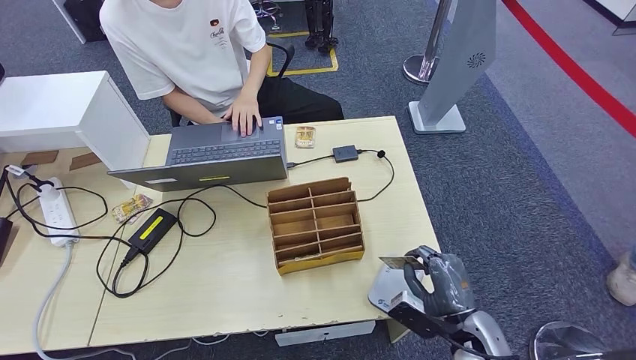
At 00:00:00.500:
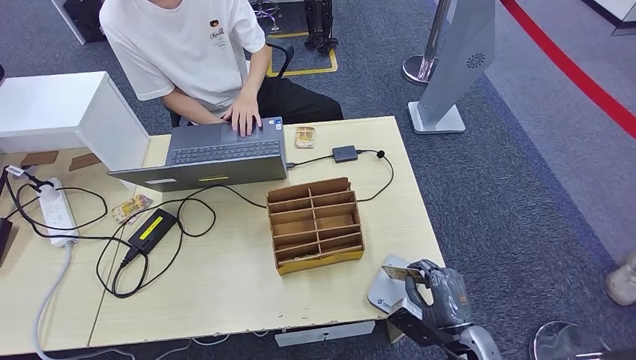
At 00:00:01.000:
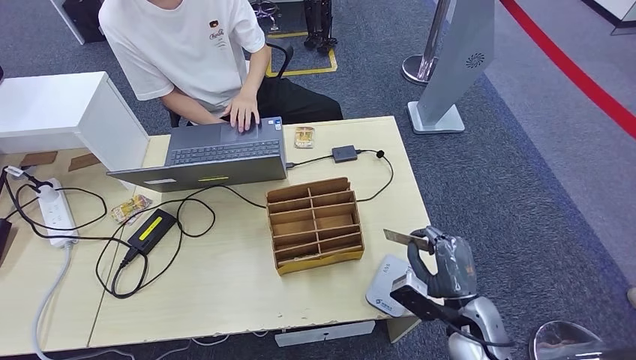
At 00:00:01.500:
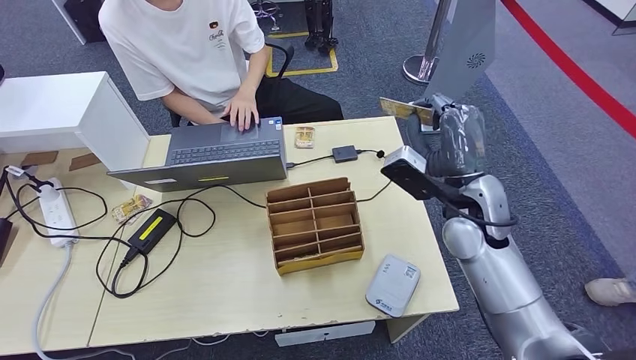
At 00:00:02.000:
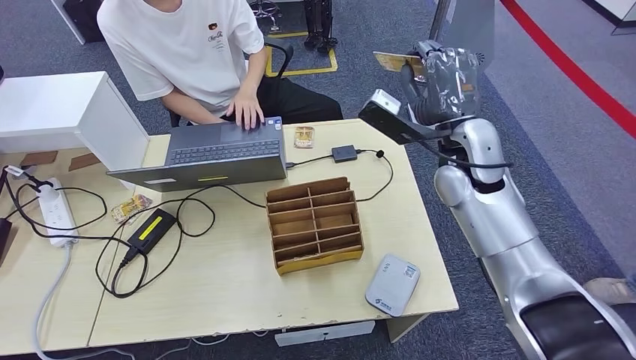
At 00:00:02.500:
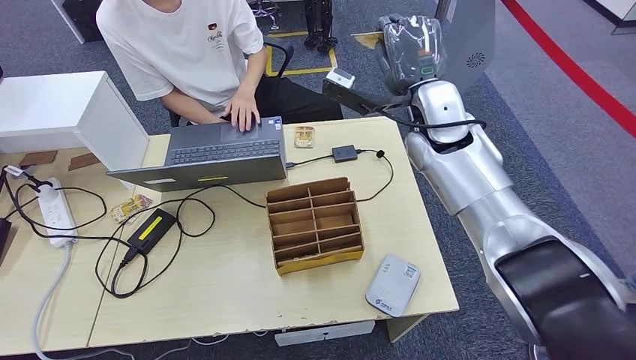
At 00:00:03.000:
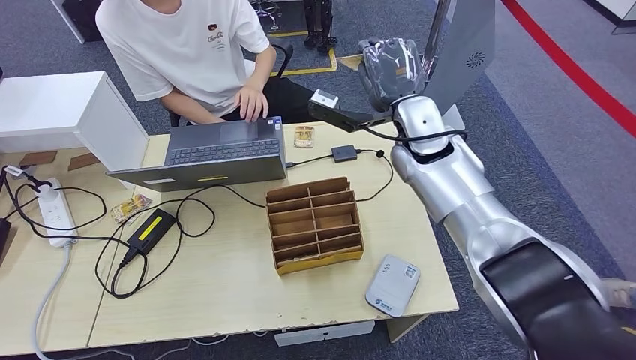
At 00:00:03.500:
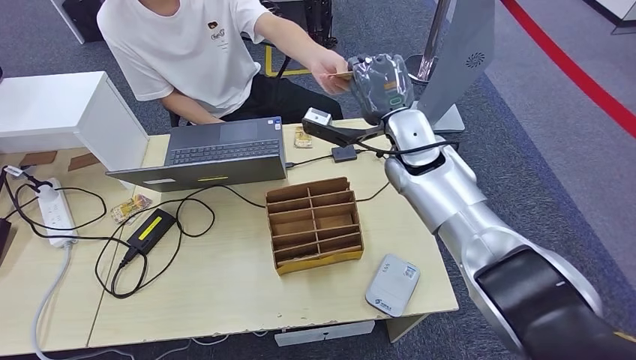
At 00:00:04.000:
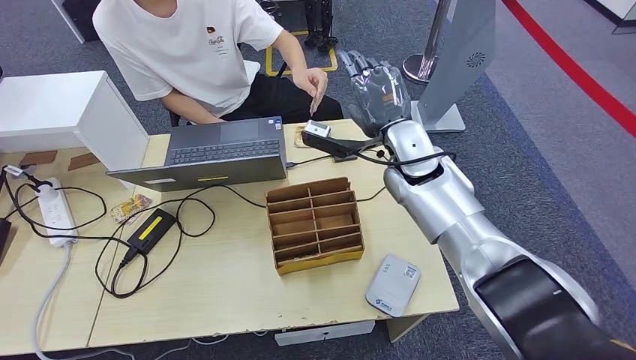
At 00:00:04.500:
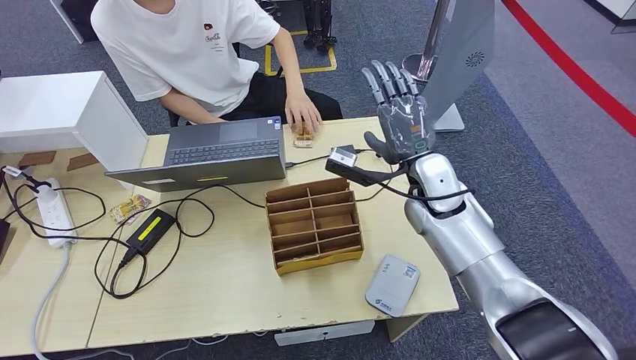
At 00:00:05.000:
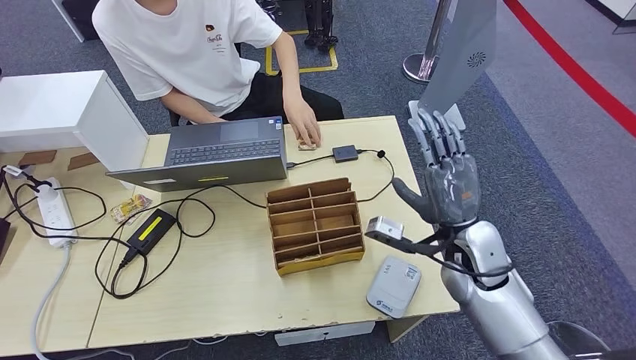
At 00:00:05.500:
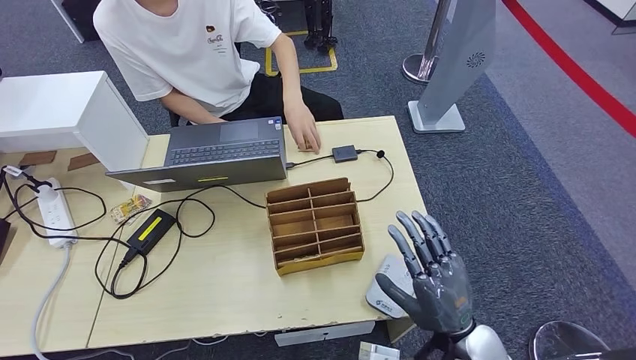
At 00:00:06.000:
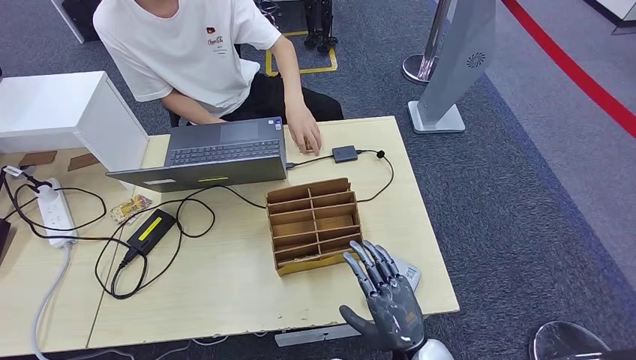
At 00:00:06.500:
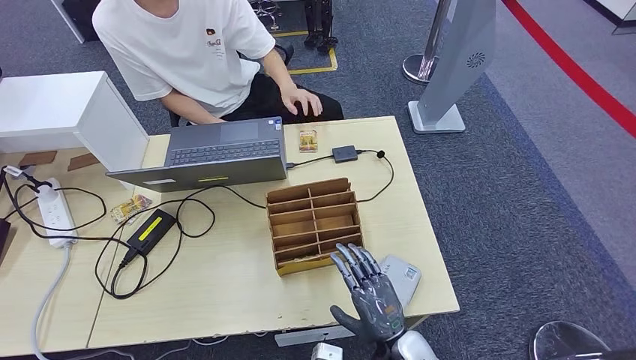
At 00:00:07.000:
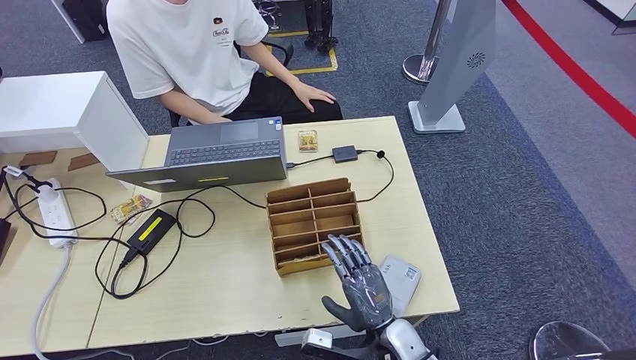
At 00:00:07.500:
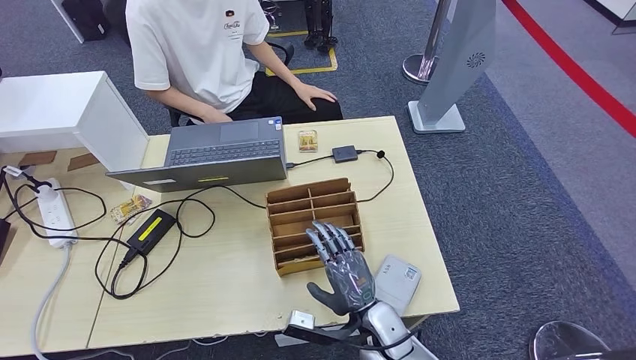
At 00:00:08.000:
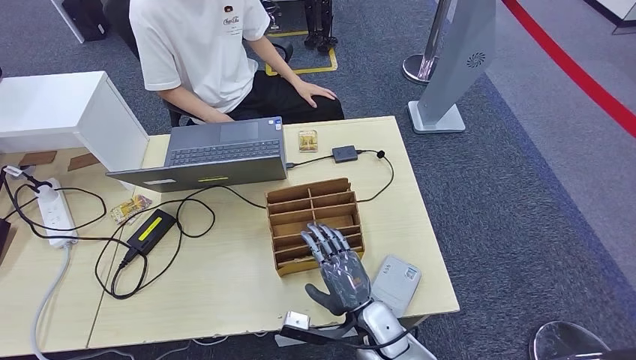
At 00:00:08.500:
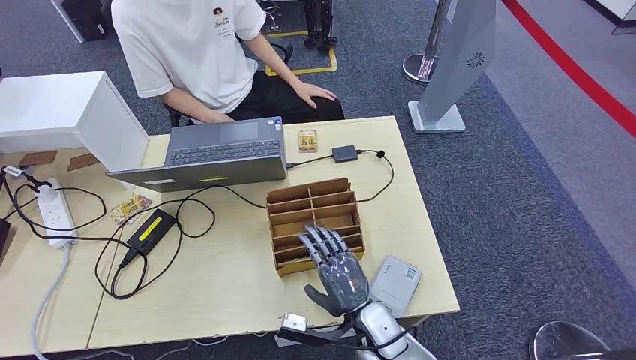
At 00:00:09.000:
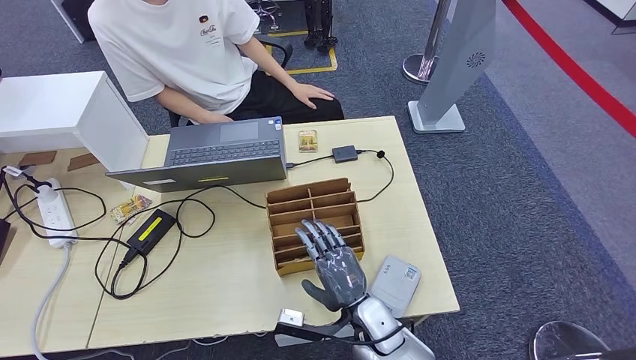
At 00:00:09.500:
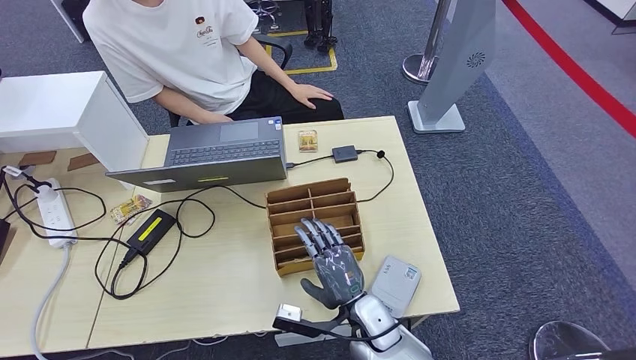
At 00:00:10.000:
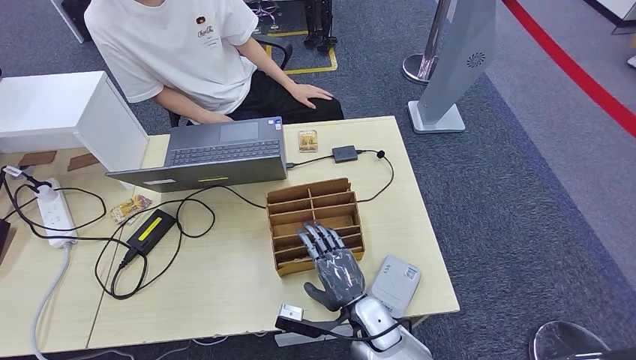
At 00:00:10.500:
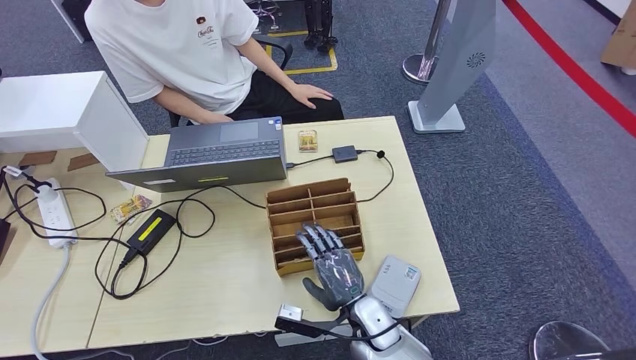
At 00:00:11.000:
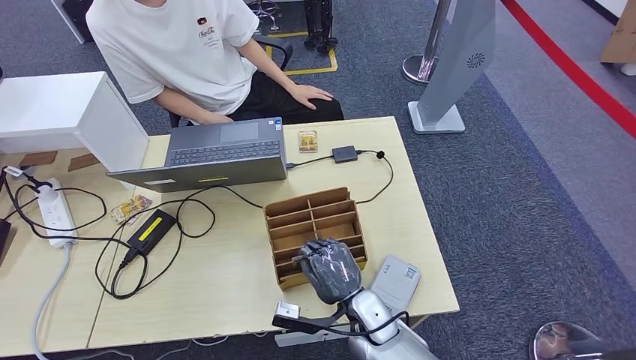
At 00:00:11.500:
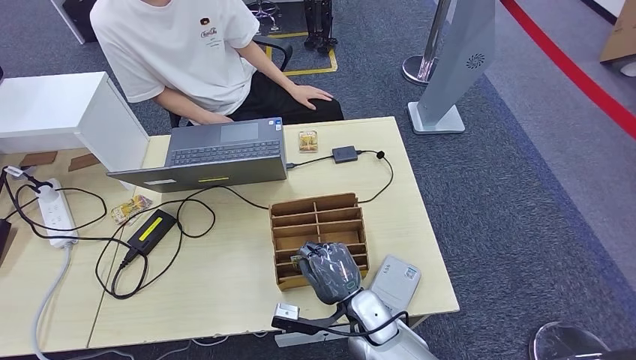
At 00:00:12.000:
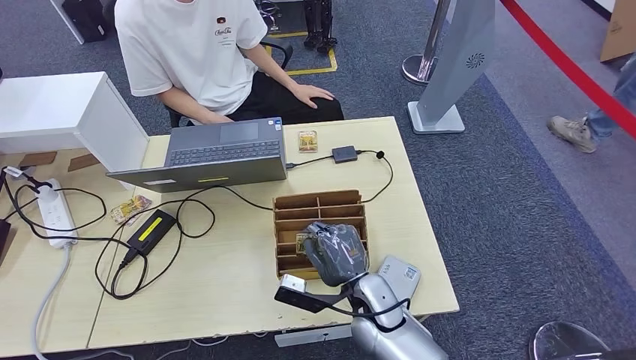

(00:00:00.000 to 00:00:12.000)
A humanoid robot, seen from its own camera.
Step, 00:00:01.000 - 00:00:04.000: Hand the ID card to the person.
Step, 00:00:04.500 - 00:00:10.500: Pick up the room key from the key card box.
00:00:00.000 - 00:00:02.000: The right hand shifts about 35 cm upward and forward.
00:00:02.000 - 00:00:04.000: The right hand is displaced to the left by about 10 cm.
00:00:04.000 - 00:00:06.000: The right hand travels backward and downward by some 35 cm.
00:00:06.000 - 00:00:08.000: The right hand is displaced to the left and forward by some 10 cm.
00:00:08.000 - 00:00:10.000: There are only small adjustments of the hands.
00:00:10.000 - 00:00:12.000: The right hand shifts by roughly 5 cm.

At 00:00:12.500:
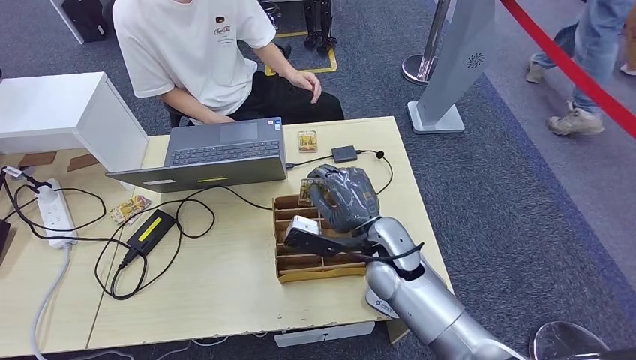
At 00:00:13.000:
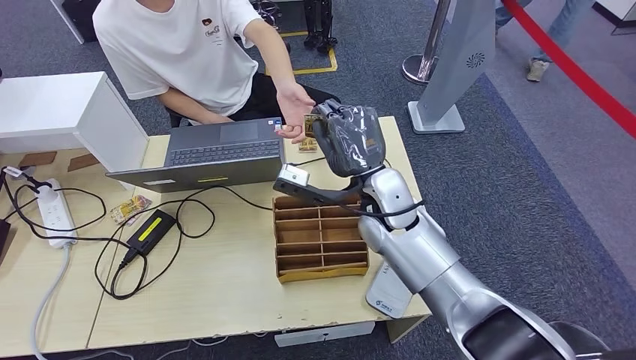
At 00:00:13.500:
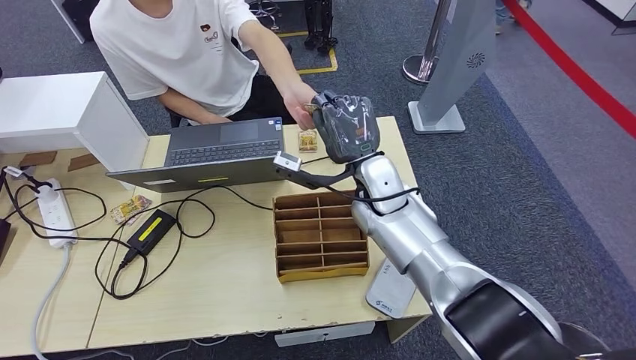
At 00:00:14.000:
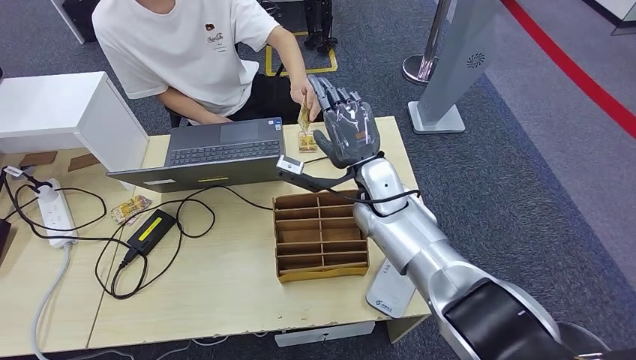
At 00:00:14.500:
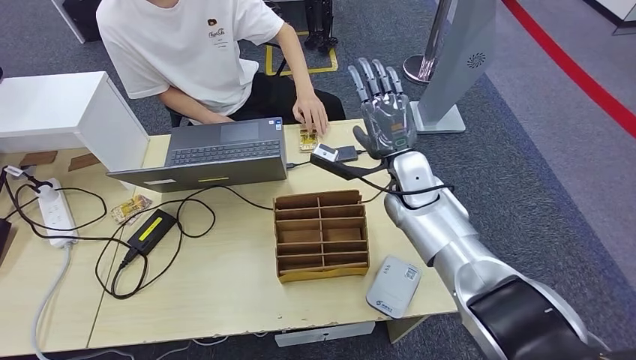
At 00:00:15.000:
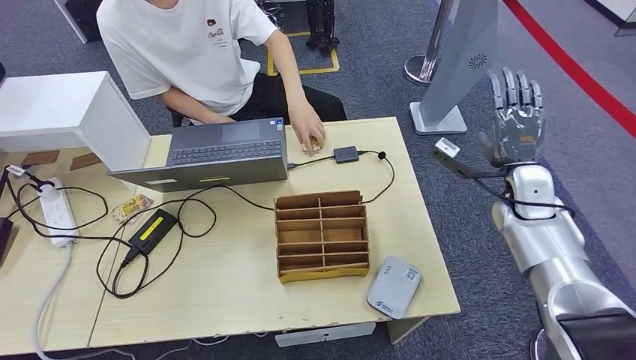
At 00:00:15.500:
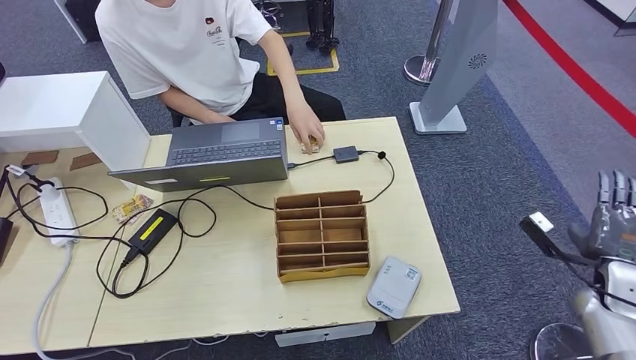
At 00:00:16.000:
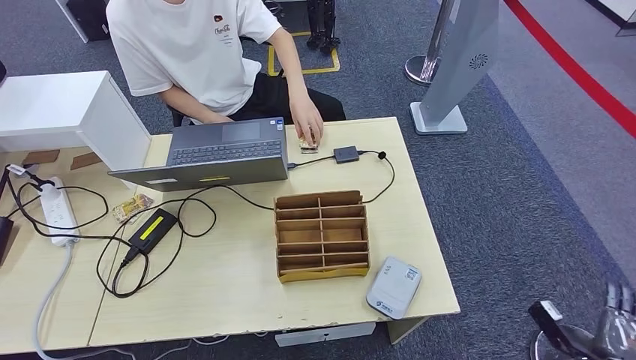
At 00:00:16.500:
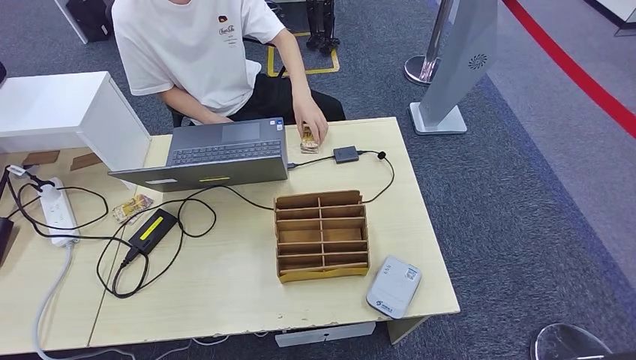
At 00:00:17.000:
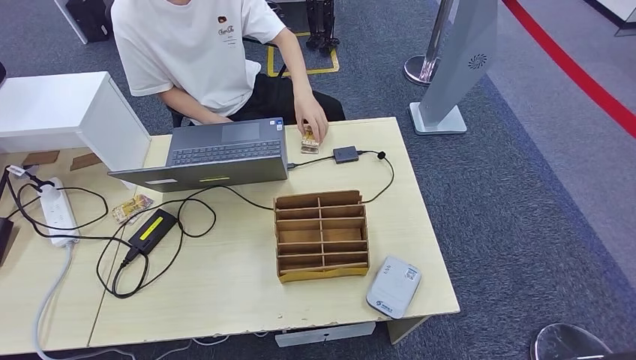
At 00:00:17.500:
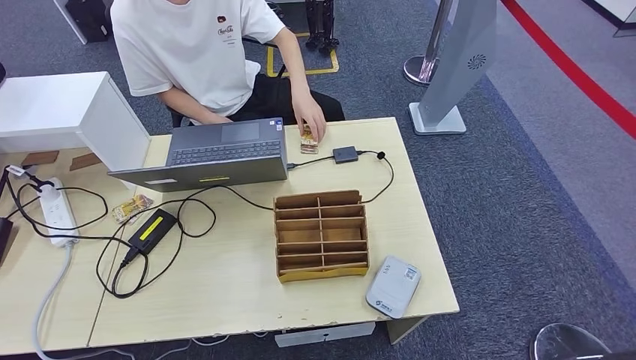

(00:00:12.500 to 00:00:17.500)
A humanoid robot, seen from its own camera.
Step, 00:00:12.500 - 00:00:17.500: Hand the room key to the person.
00:00:15.000 - 00:00:17.500: The right hand travels backward, downward and to the left by about 50 cm.
